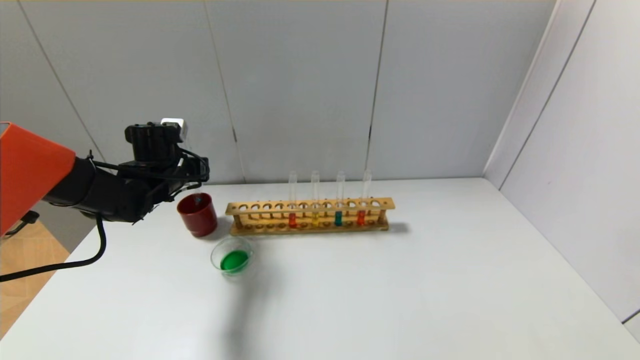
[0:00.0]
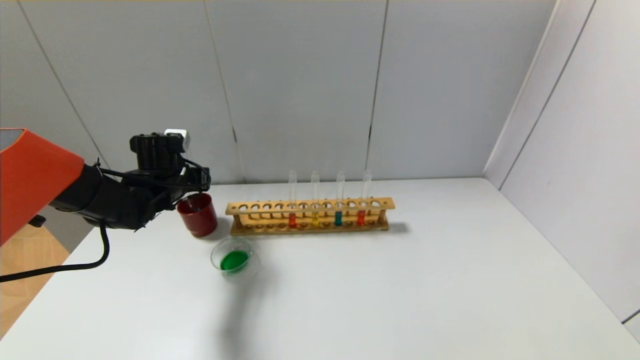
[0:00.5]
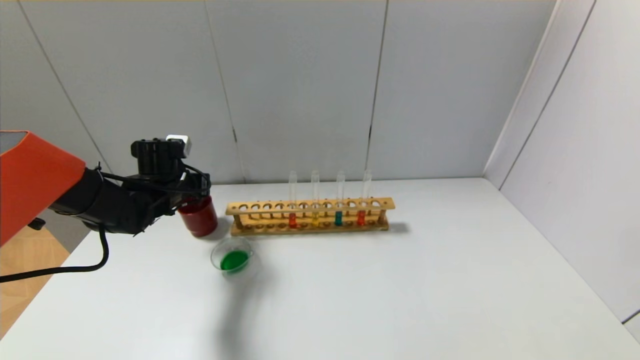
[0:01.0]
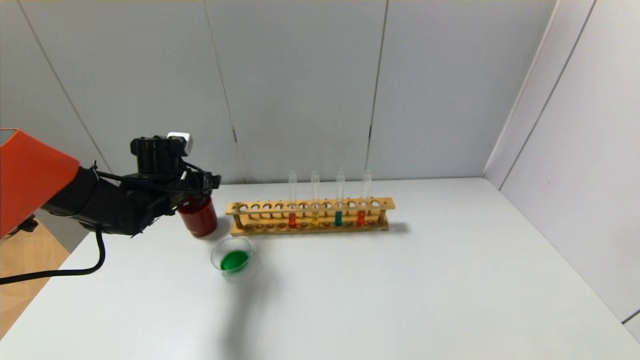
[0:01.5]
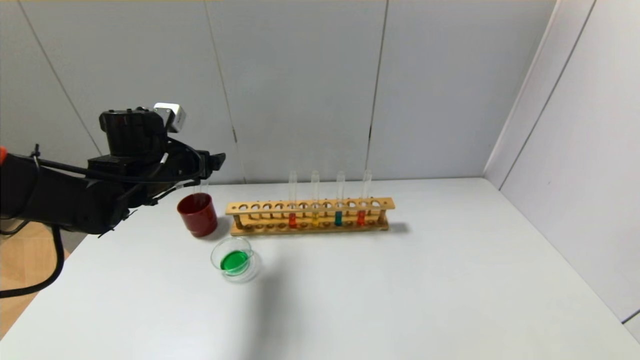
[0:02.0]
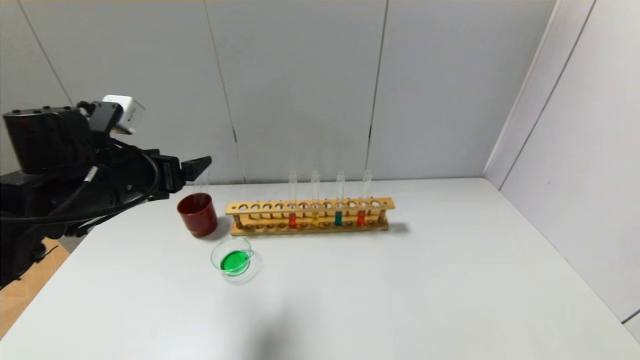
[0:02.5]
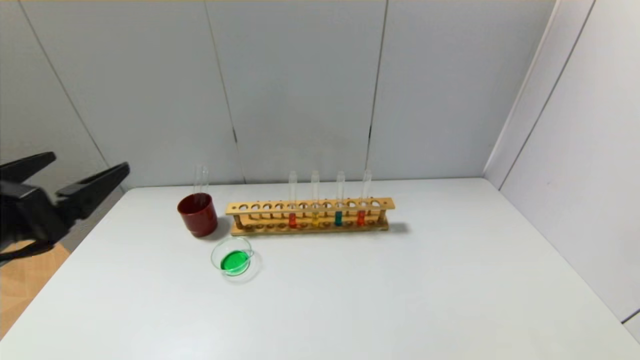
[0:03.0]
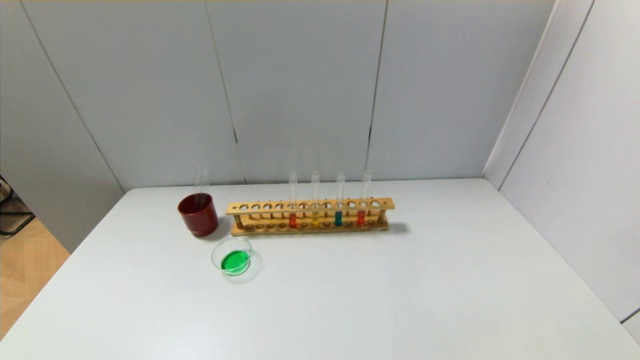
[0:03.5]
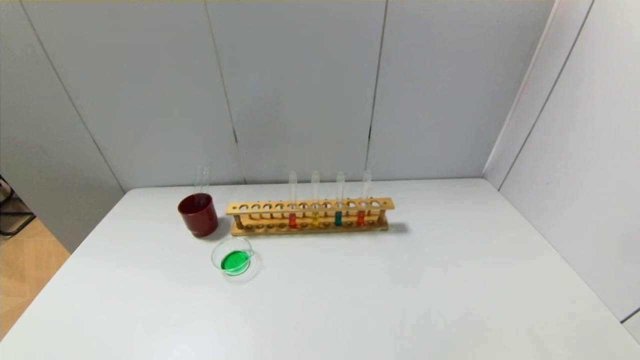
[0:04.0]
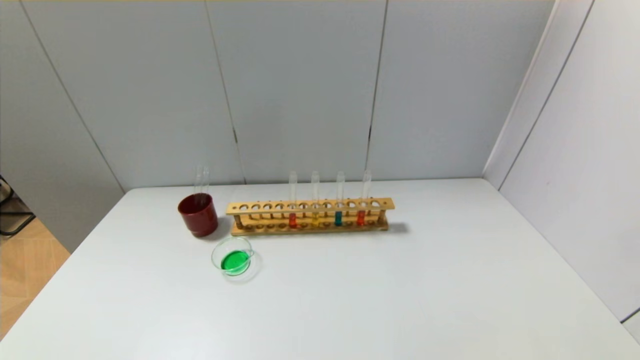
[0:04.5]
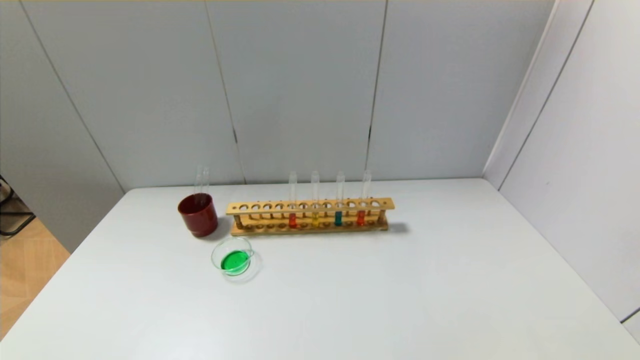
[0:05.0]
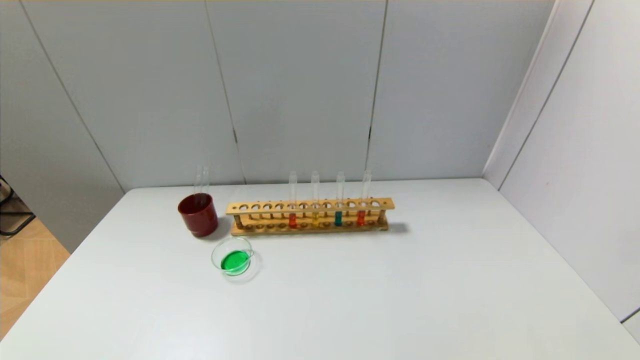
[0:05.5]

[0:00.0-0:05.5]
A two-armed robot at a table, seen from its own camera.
0:00.0 to 0:02.0: The left gripper moves backward, roughly 5 cm, and opens its fingers.
0:02.0 to 0:03.5: The left gripper is displaced backward by some 40 cm.
